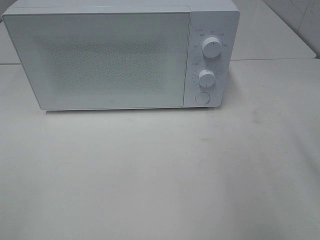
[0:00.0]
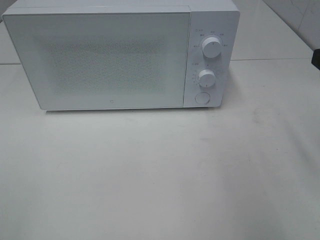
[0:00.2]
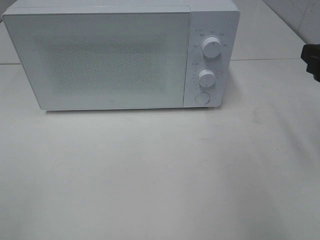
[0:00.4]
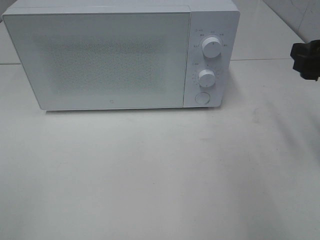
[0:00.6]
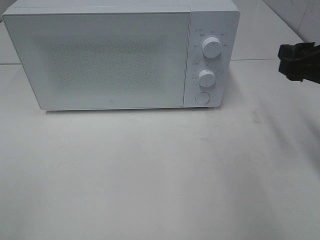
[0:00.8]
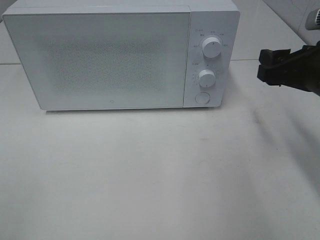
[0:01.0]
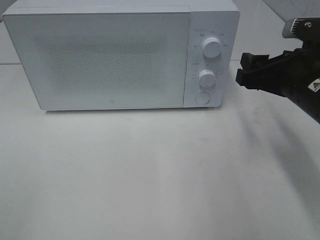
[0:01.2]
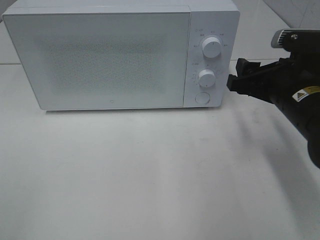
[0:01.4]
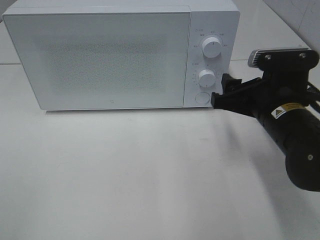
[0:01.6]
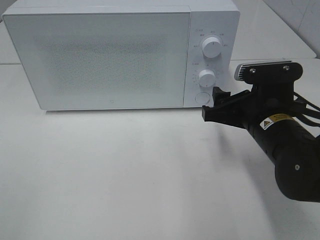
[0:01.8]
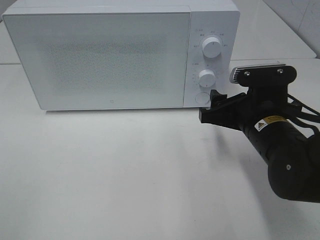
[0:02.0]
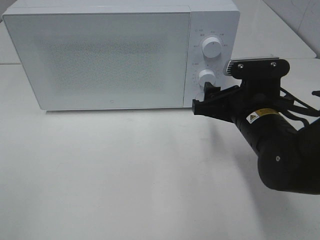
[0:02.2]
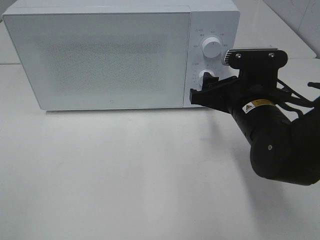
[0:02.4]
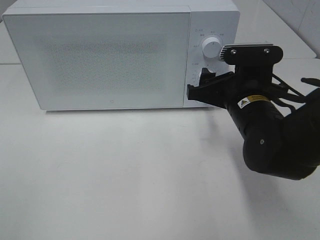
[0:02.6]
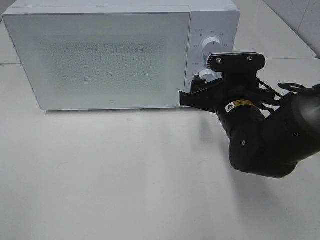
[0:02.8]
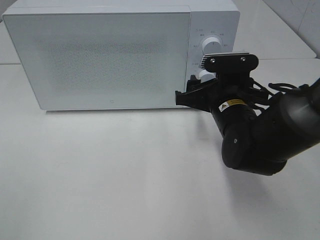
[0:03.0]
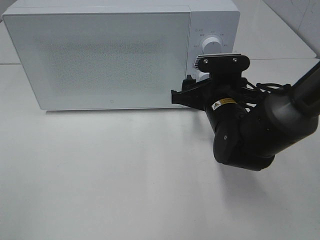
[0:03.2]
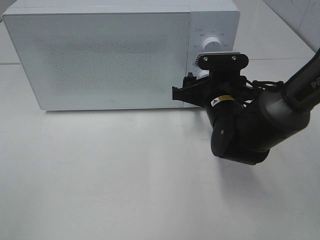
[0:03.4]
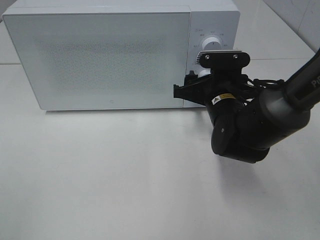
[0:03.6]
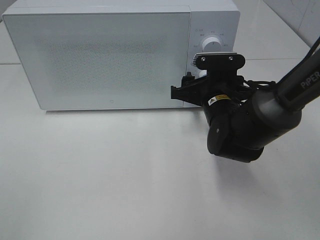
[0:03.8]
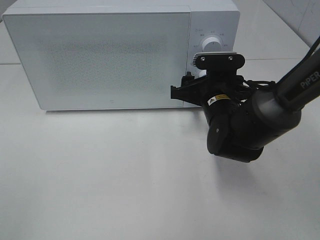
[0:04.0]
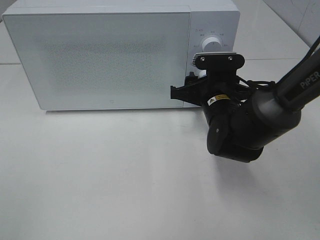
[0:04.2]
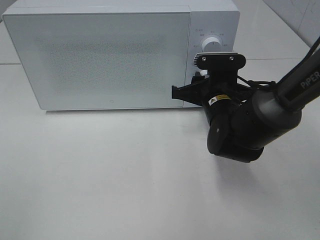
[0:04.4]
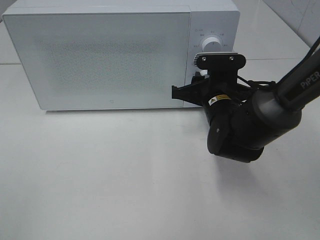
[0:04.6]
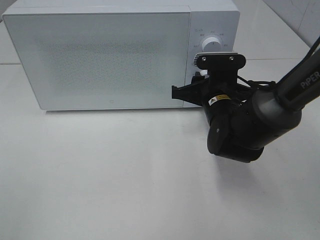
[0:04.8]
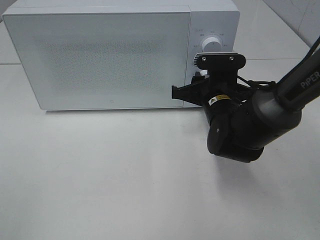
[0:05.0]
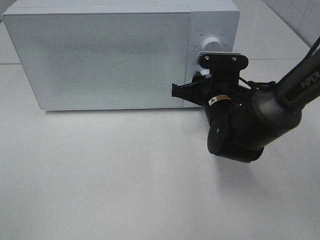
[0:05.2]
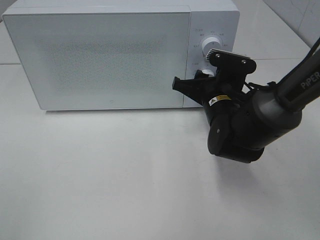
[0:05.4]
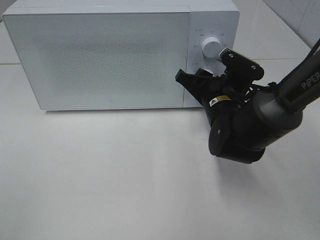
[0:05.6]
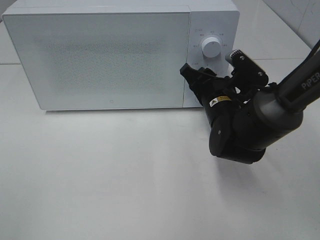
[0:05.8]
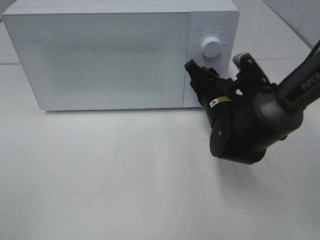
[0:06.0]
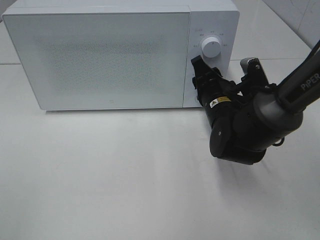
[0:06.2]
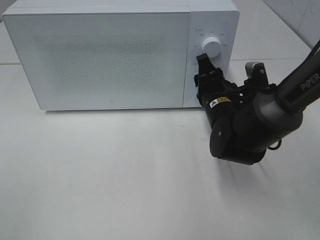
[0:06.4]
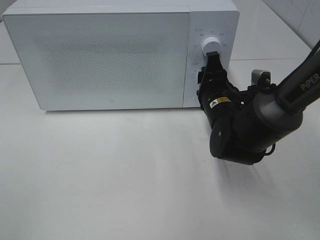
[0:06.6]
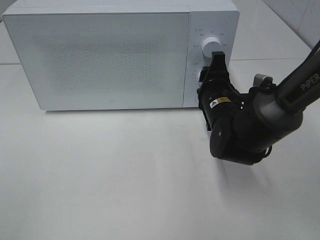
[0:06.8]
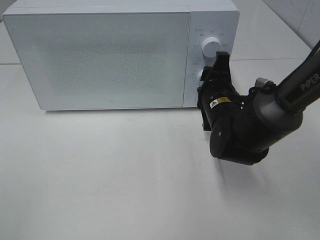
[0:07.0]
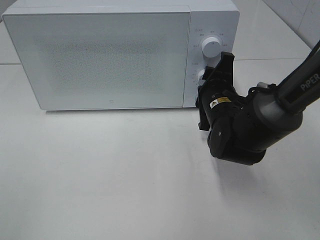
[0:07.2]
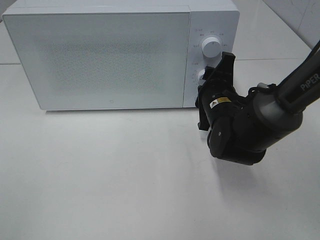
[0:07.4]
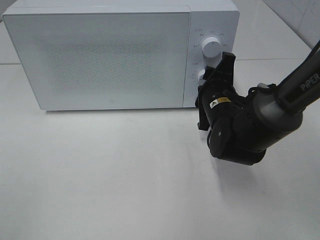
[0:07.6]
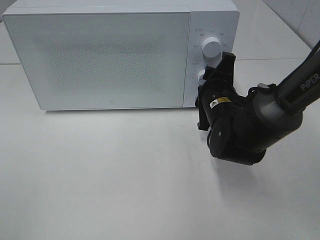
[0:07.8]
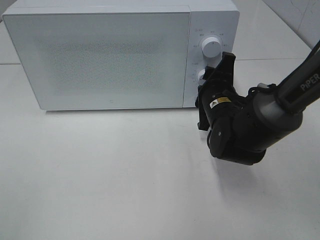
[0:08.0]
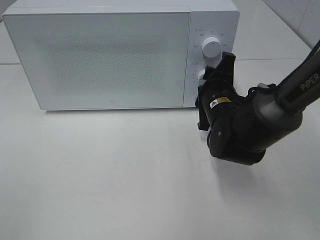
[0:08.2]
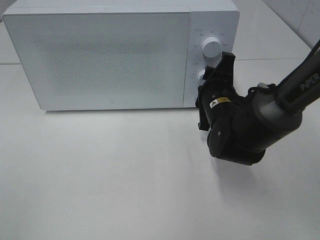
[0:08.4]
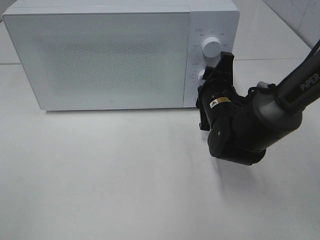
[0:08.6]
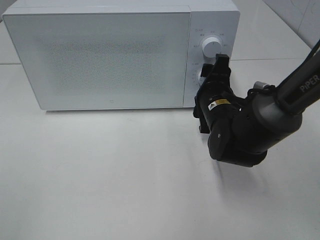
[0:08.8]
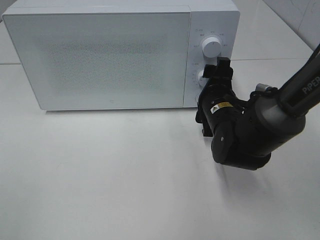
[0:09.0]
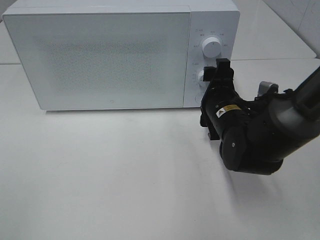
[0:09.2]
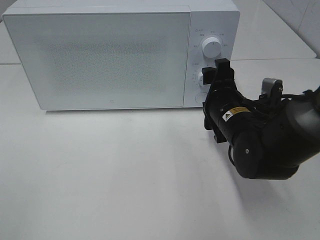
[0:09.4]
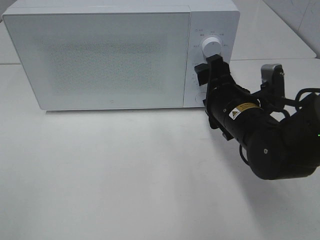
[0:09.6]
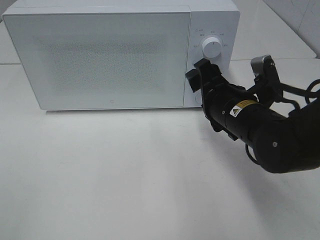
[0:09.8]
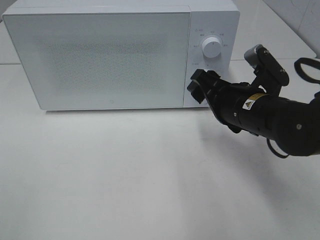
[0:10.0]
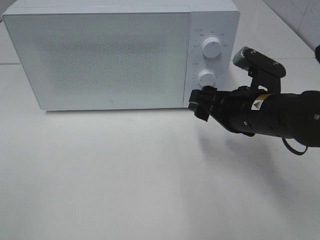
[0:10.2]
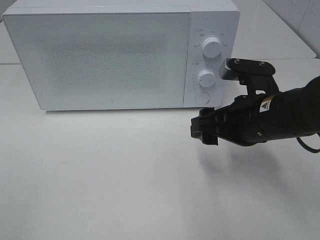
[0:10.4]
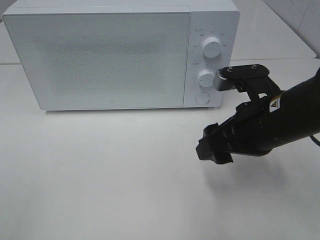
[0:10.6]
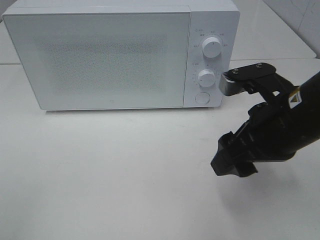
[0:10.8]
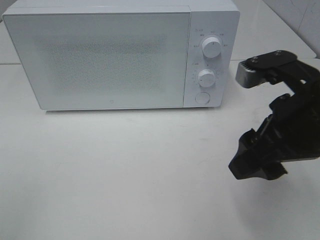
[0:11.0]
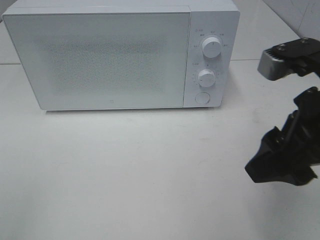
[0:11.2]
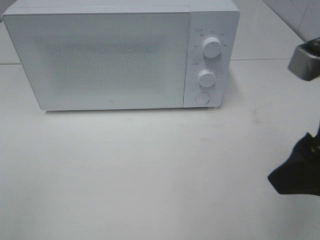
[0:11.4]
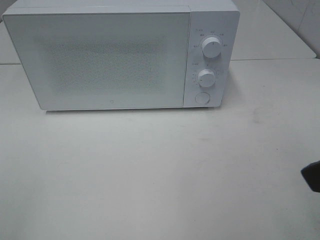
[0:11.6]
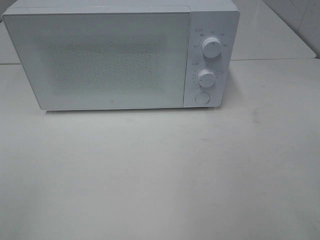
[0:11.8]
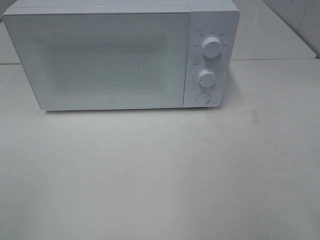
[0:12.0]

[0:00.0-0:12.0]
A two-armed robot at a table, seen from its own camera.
Task of the whole recording: Heat the burger.
Step, 0:00.0 to 0:09.0: Right hand: twist timer button.
0:00.0 to 0:01.6: The right gripper heads downward, to the left and forward, covering about 15 cm.
0:01.6 to 0:03.0: The right gripper travels to the left by approximately 5 cm.
0:03.0 to 0:04.4: The right gripper closes its fingers.
0:07.6 to 0:09.0: The right gripper opens.
0:09.0 to 0:10.4: The right gripper travels backward and upward by approximately 10 cm.
0:10.4 to 0:12.0: The right gripper heads backward, upward and to the right, covering roughly 25 cm.

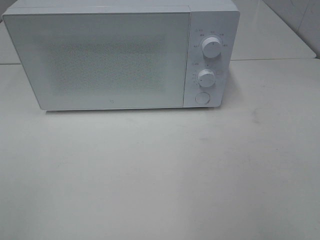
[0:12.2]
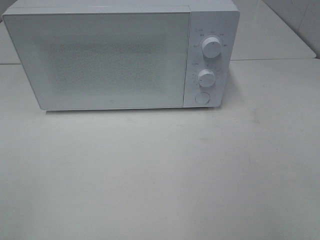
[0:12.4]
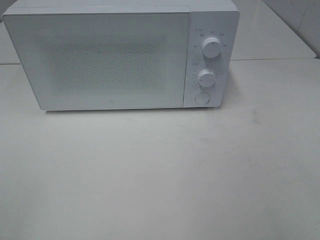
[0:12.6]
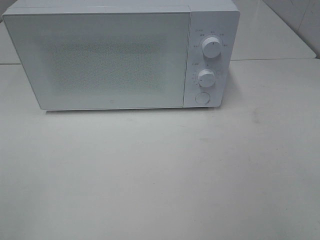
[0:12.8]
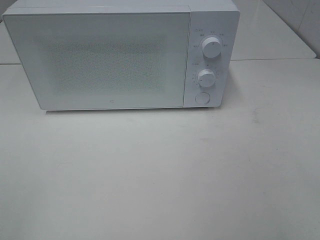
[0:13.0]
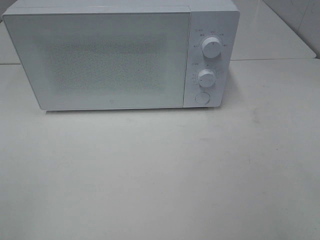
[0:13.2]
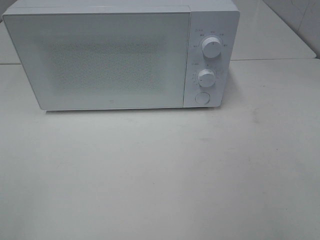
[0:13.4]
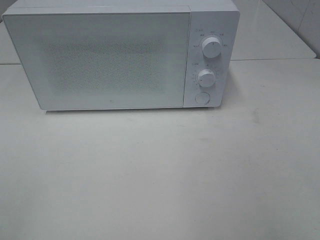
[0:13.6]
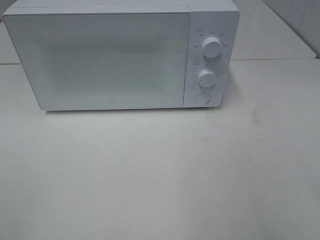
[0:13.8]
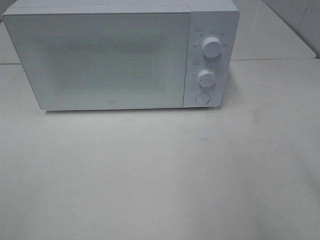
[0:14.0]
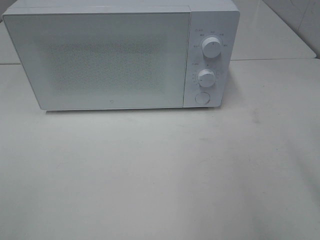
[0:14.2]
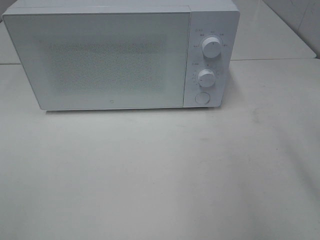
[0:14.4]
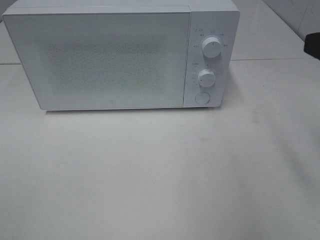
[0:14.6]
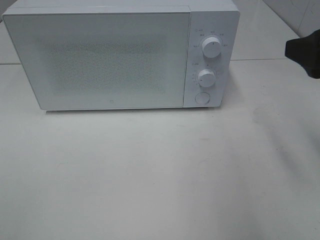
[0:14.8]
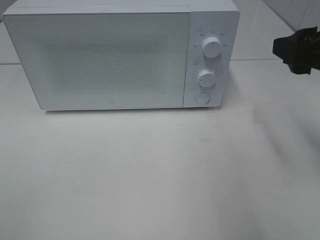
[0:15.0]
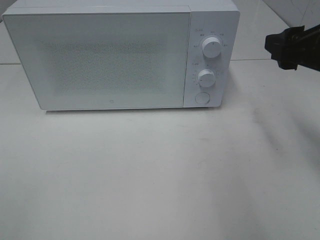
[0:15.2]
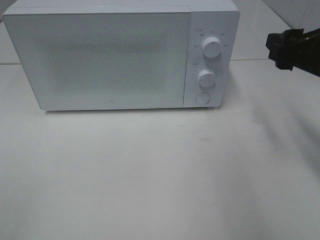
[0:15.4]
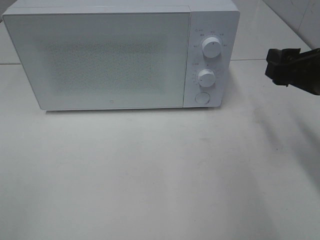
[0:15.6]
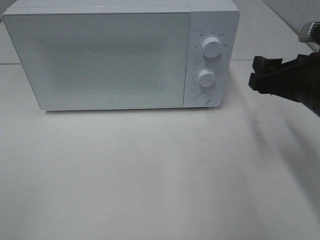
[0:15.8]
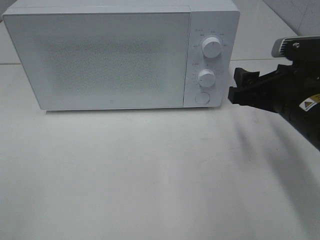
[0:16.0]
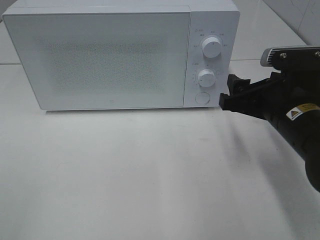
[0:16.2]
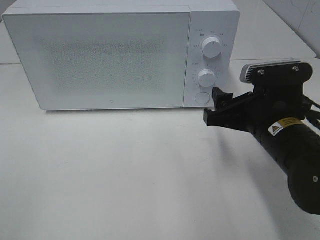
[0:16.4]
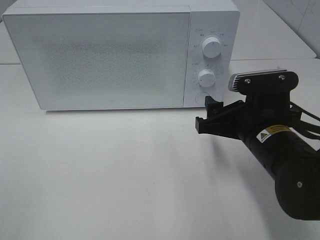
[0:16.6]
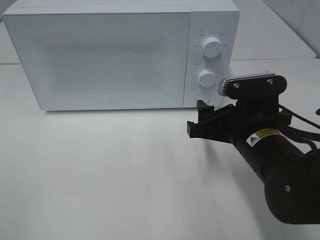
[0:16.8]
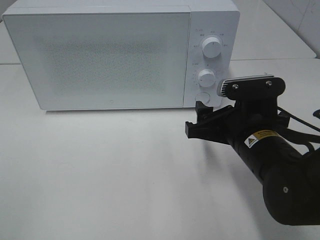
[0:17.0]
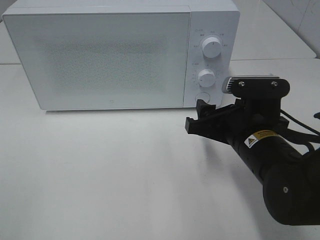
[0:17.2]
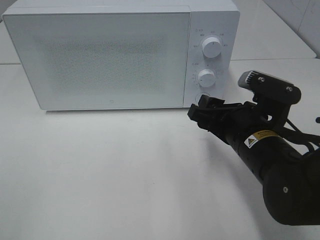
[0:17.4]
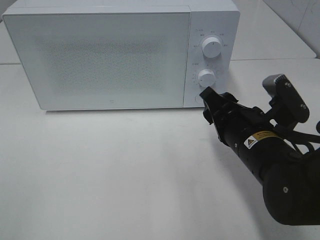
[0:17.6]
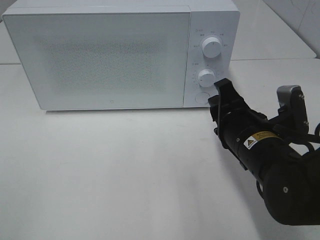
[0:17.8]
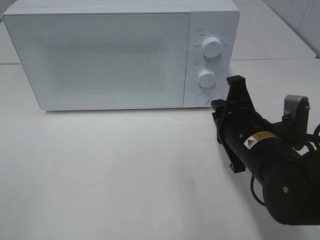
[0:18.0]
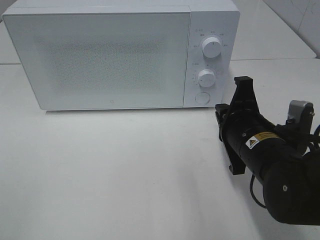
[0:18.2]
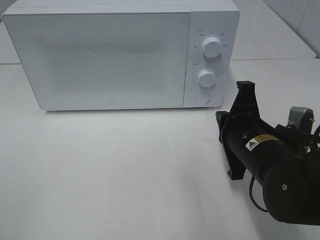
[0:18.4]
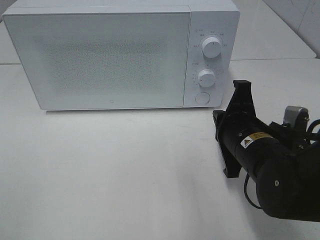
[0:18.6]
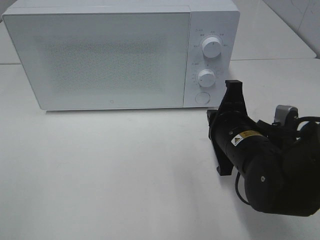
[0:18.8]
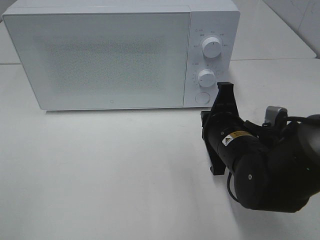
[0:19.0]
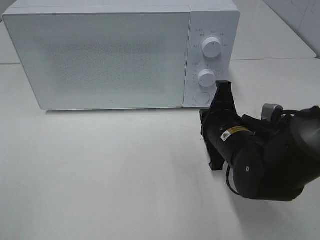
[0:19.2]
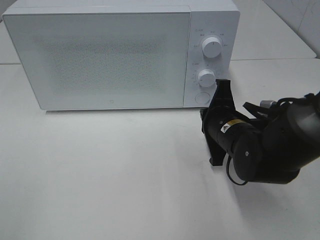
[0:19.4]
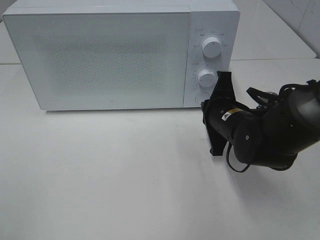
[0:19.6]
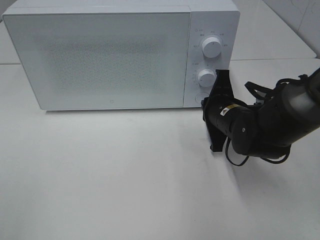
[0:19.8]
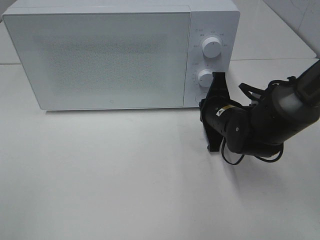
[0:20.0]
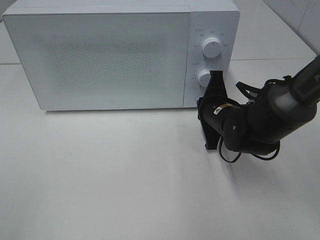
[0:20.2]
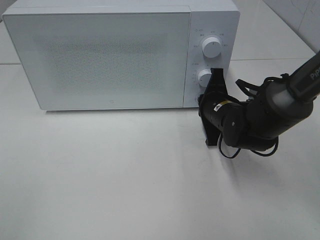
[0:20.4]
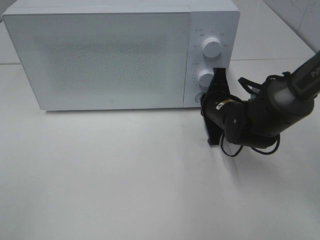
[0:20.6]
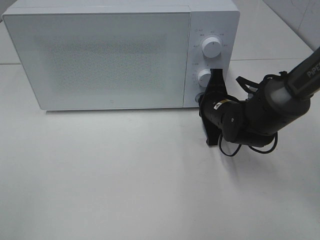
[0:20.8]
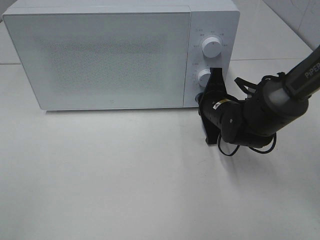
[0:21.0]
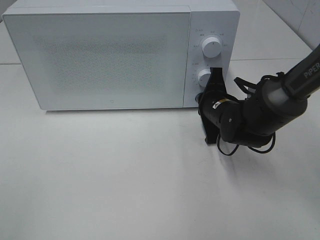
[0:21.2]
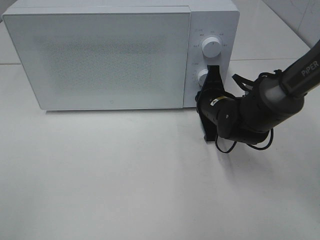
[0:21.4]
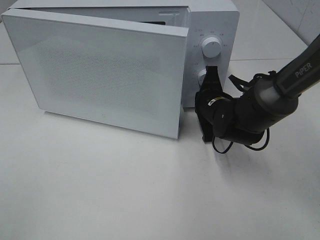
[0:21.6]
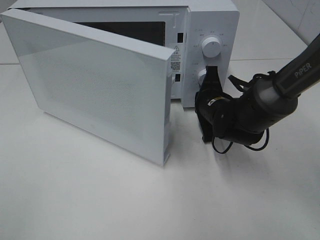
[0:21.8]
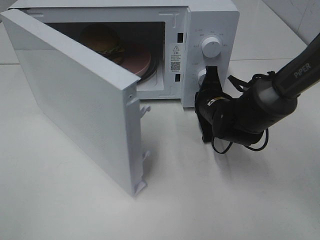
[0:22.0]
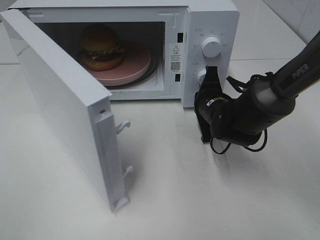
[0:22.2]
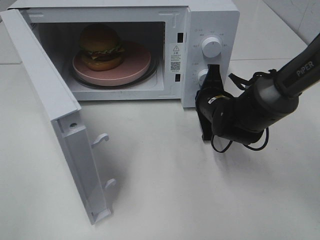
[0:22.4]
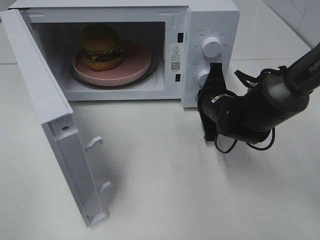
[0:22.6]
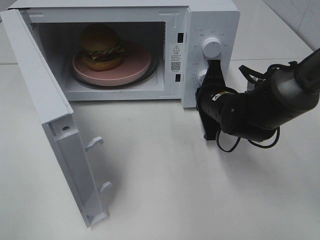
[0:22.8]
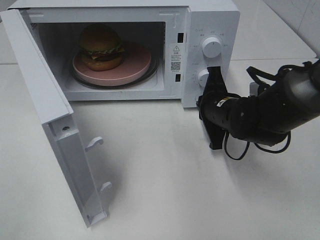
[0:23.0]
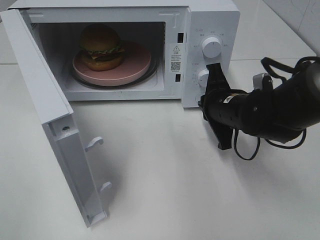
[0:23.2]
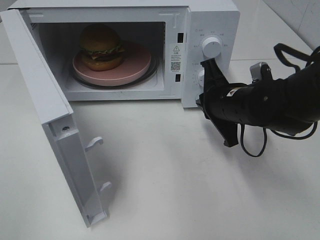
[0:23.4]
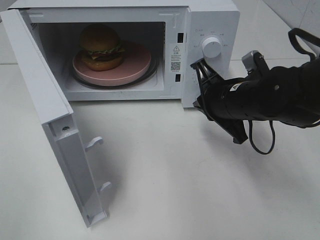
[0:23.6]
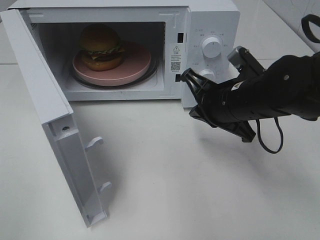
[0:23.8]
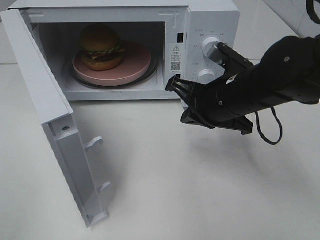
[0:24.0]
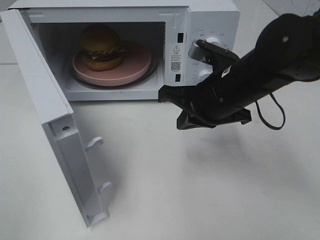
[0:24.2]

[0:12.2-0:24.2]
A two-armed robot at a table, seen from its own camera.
Task of the whole recording: Heat the burger.
Step, 0:12.2 to 0:23.0: Right hand: press the switch.
0:13.8 to 0:15.2: The right gripper heads forward, covering roughly 20 cm.
0:15.2 to 0:16.6: The right gripper shifts roughly 15 cm downward and to the left.
0:16.6 to 0:18.2: The right gripper closes its fingers.
0:18.2 to 0:19.8: The right gripper travels forward by approximately 10 cm.
0:19.8 to 0:21.2: The grippers move only a little.
0:22.6 to 0:24.2: The right gripper is displaced upward and backward by approximately 10 cm.
